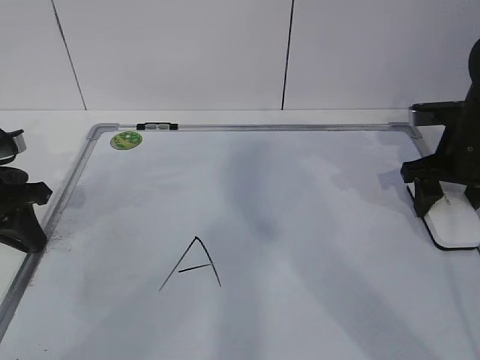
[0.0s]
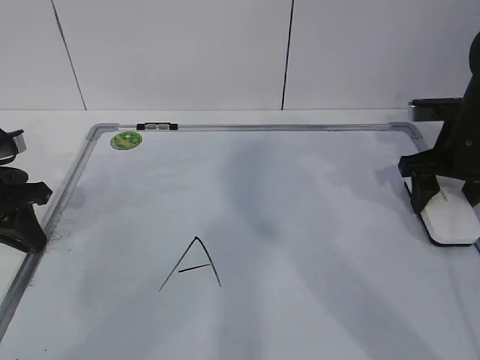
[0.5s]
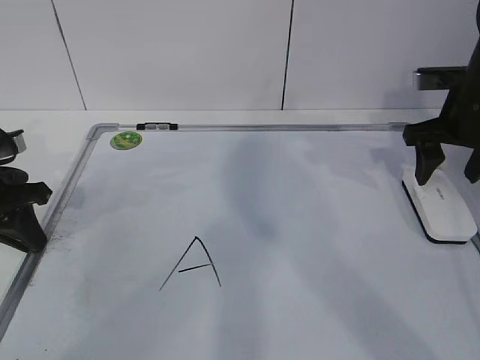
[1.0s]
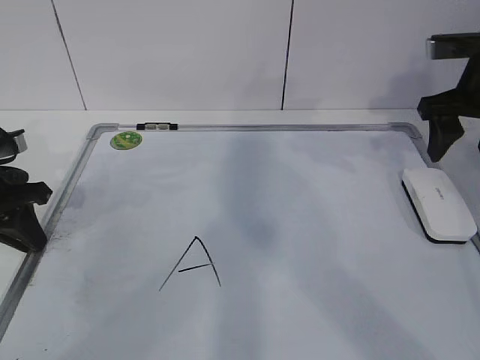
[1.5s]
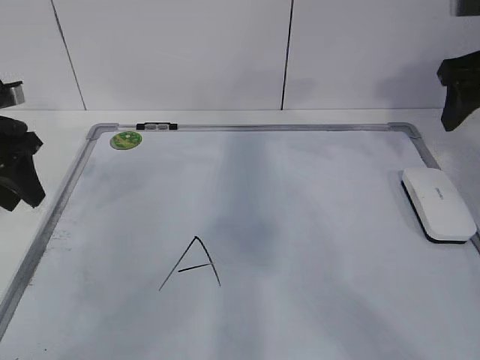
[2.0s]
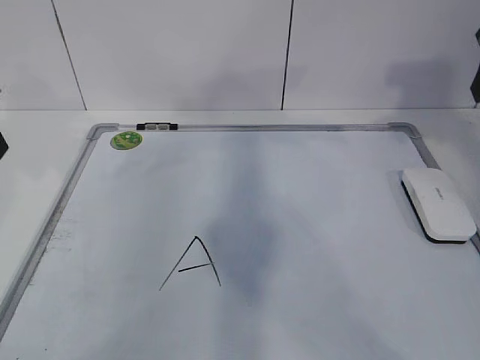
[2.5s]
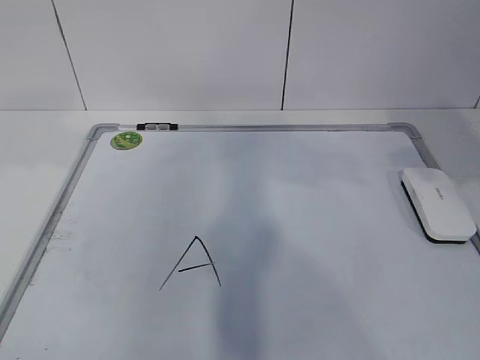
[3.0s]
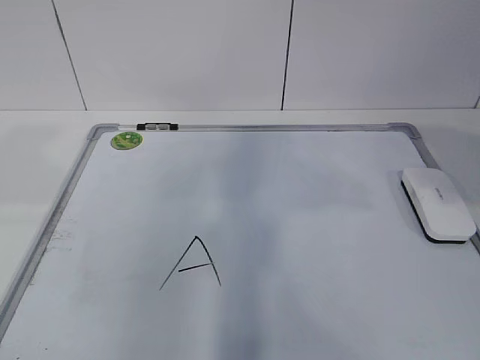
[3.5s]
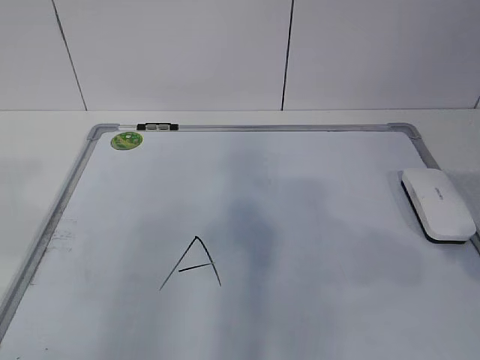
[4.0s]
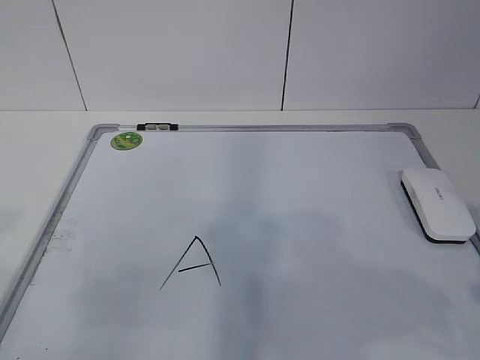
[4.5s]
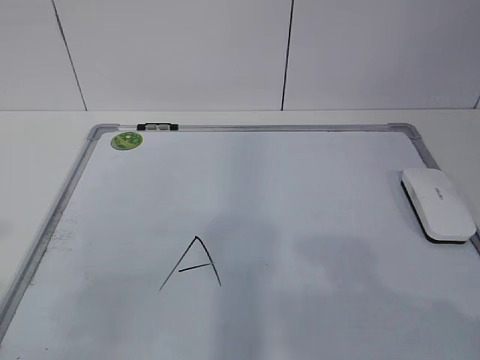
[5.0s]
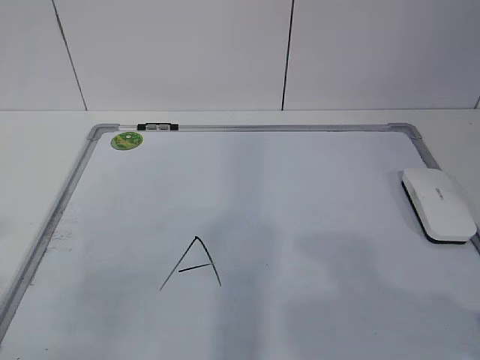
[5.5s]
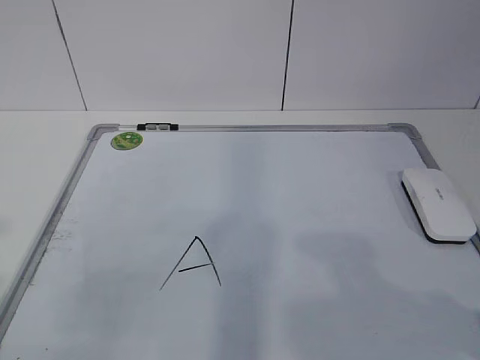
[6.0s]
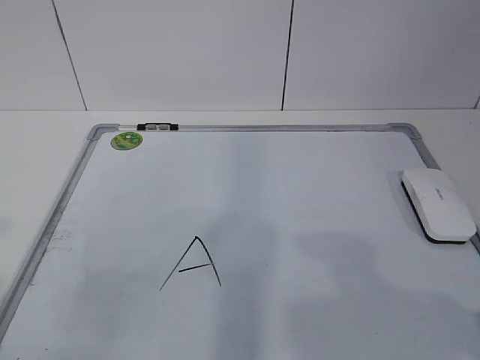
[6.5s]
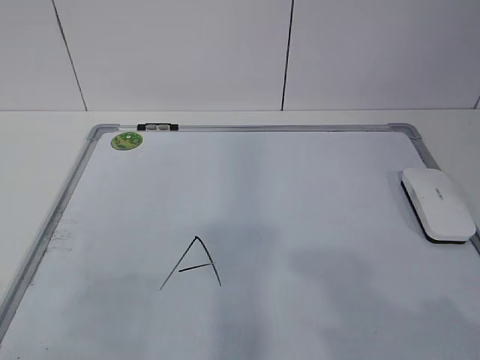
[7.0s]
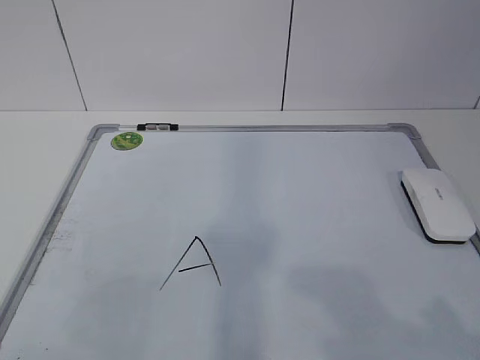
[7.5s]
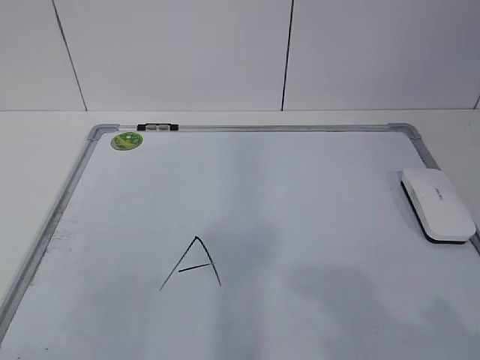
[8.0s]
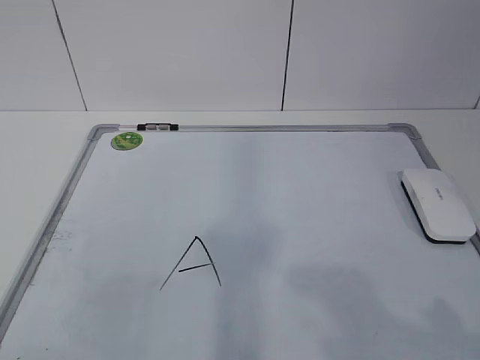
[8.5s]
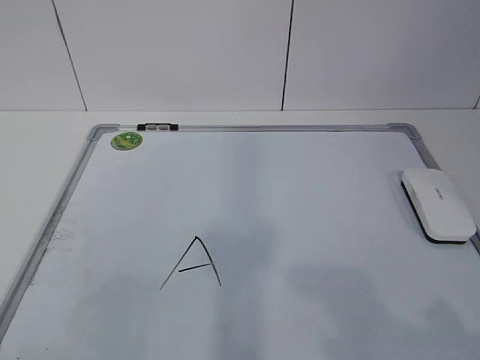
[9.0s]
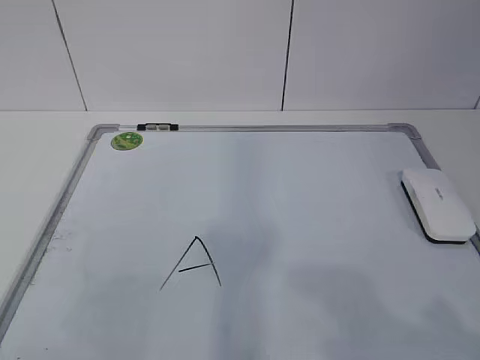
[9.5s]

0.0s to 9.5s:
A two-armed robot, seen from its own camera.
Task of the whole recording: pick up the eraser on the blackboard and erase the letter "a".
0.0s to 2.0s: The left gripper heads upward, covering approximately 5 cm, and opens up. Meanwhile the right gripper moves upward, about 15 cm.
2.0s to 4.0s: The left gripper travels backward and upward by roughly 30 cm; the right gripper shifts some 25 cm backward.
4.0s to 5.5s: The right gripper is displaced backward and downward by about 10 cm, while the left gripper goes some 5 cm downward.
7.5s to 9.5s: The two grippers keep their place.
